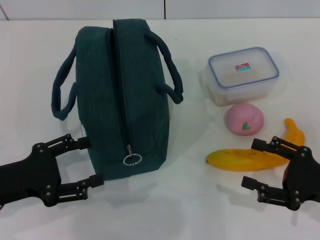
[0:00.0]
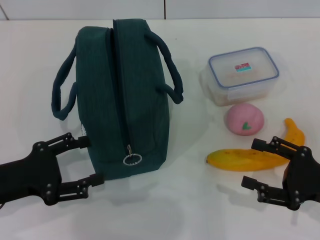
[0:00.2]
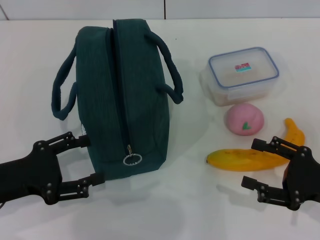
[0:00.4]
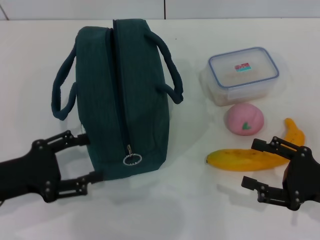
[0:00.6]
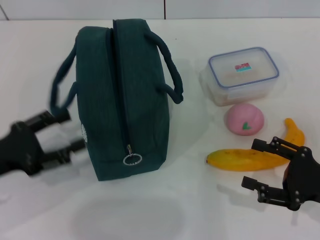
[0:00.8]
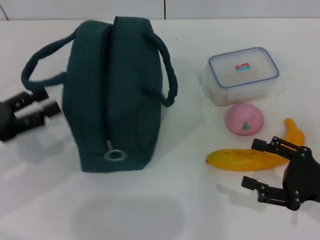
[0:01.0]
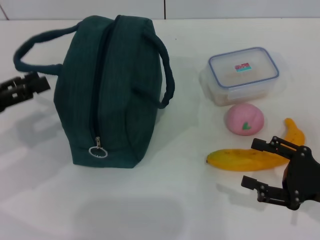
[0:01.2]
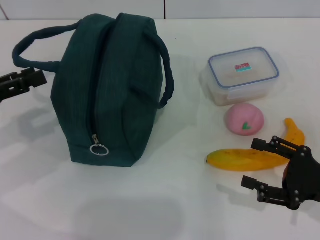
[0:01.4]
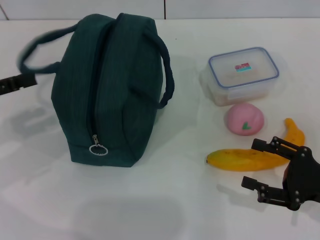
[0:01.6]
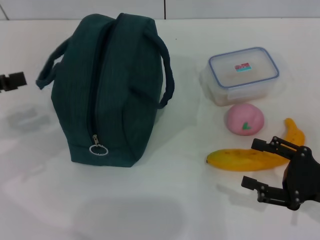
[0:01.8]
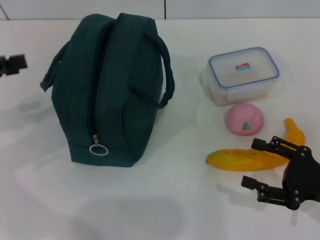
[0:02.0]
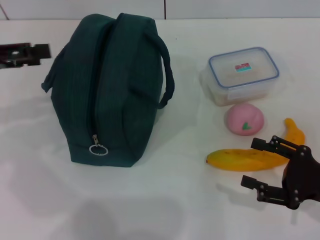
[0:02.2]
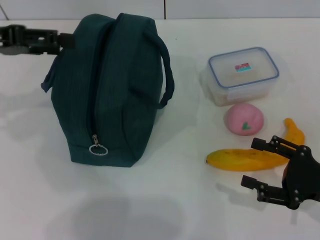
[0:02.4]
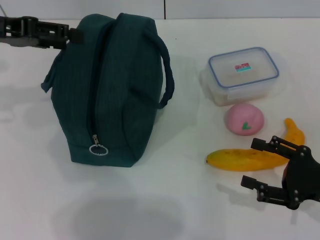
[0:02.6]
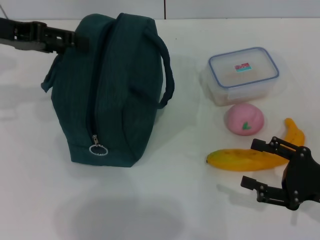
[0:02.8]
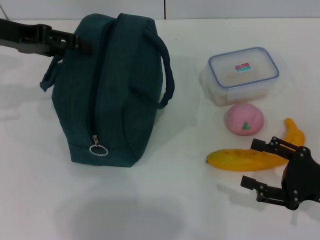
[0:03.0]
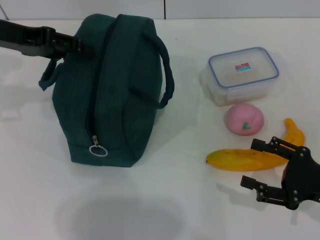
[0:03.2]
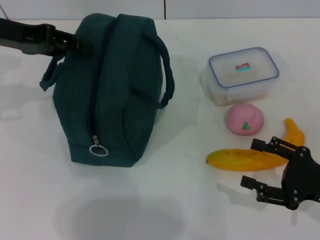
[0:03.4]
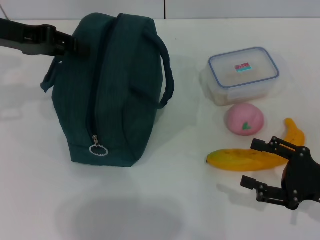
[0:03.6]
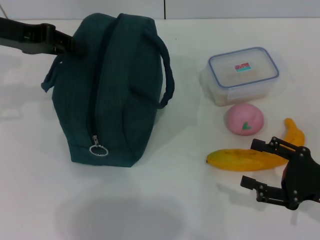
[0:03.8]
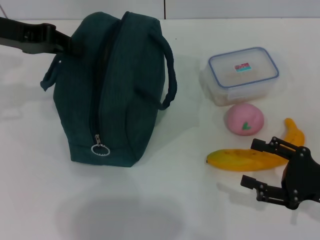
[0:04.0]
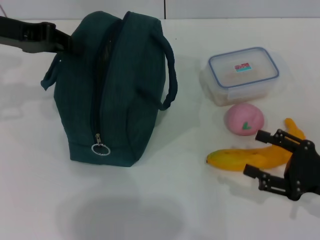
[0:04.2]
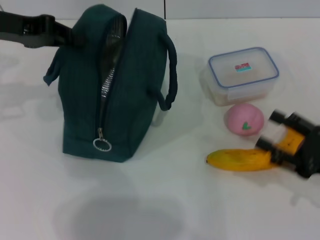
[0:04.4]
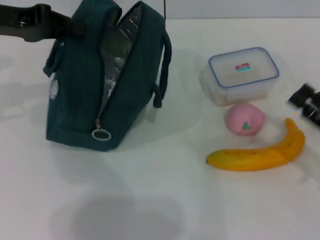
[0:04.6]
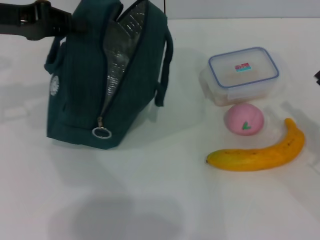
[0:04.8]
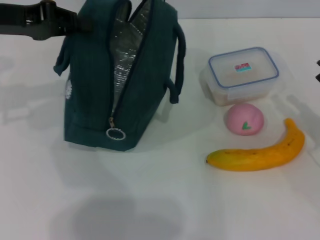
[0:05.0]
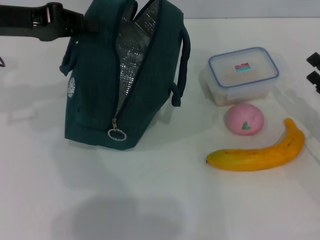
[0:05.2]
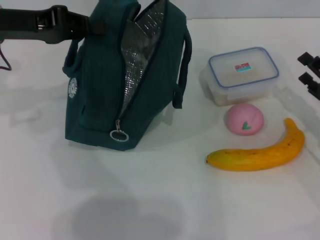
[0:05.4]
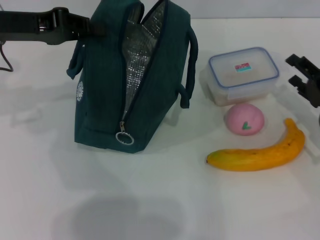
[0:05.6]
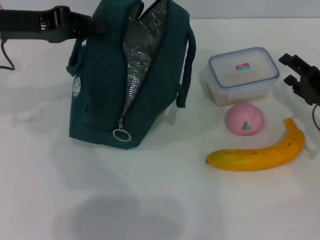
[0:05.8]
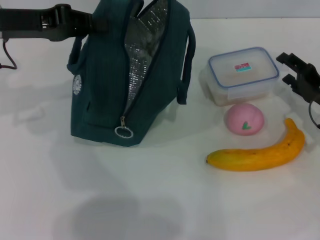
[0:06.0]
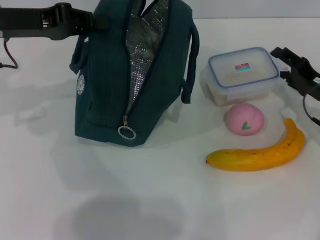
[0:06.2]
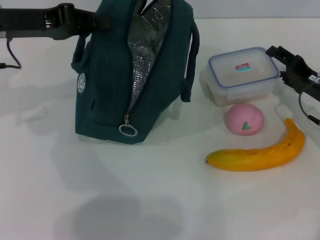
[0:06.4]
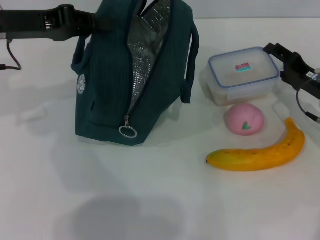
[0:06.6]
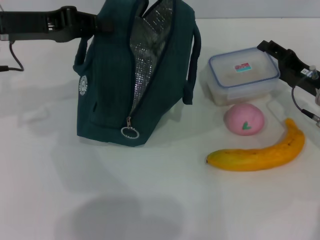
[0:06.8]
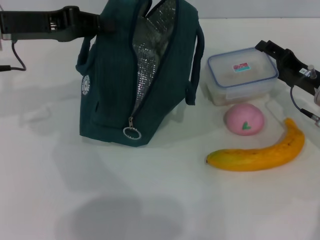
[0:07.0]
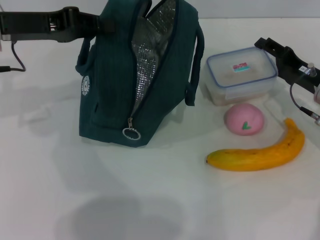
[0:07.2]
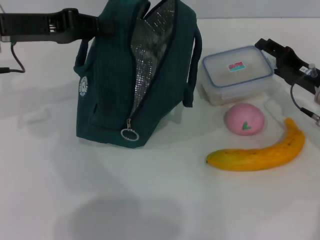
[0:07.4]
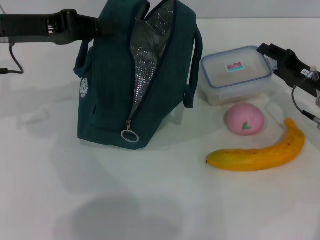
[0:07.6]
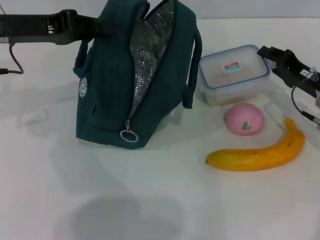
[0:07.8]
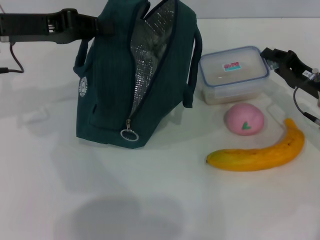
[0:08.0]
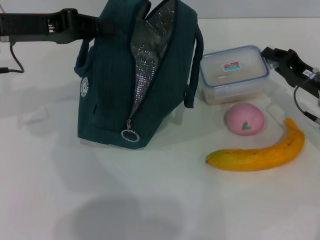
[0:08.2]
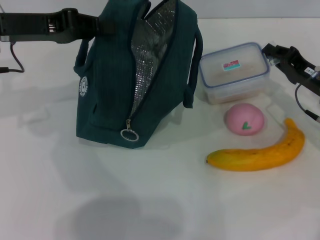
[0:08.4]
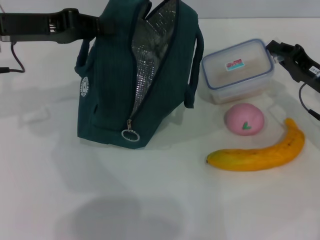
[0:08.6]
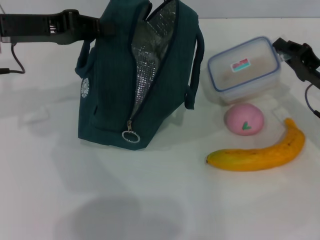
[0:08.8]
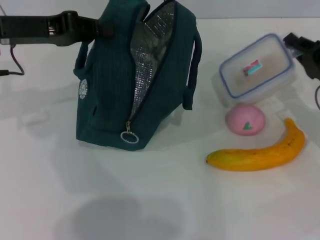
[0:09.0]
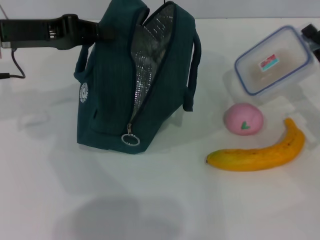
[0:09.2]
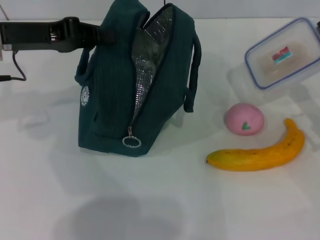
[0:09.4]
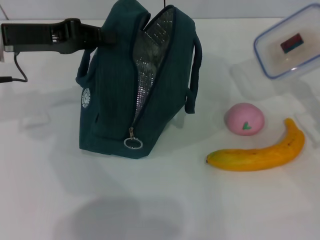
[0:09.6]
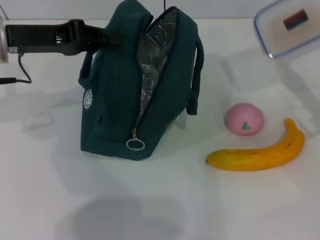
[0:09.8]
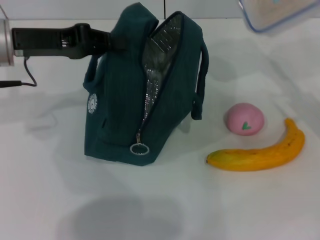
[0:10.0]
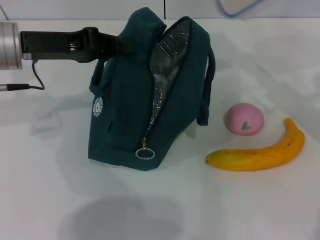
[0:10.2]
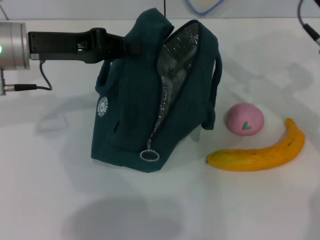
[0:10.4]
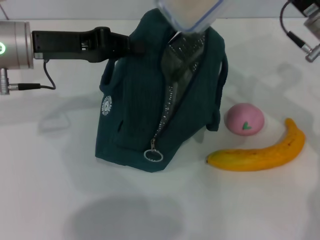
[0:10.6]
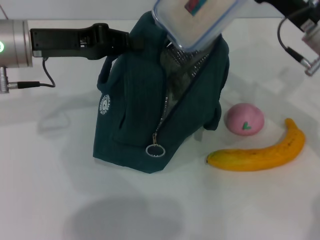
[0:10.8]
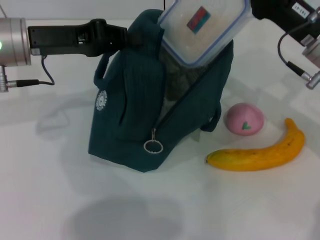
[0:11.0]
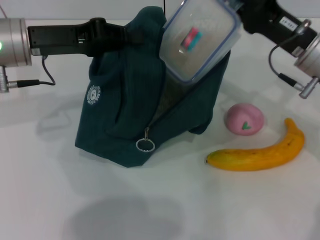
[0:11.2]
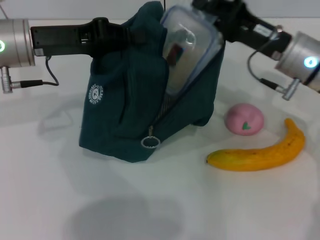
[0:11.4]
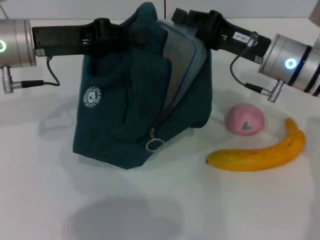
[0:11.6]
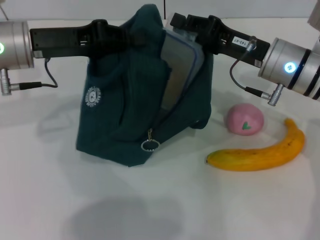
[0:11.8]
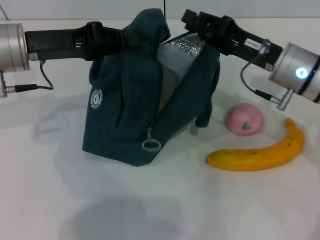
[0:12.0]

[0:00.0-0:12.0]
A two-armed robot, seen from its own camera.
Step, 0:00.0 to 0:05.0: Hold the lunch bag with your left hand.
Step, 0:05.2 to 0:08.4: Pick up the lunch box with your right hand.
0:00.0 to 0:01.6: The left gripper is displaced upward, to the left and forward by some 10 cm.
0:01.6 to 0:03.0: The left gripper moves forward, to the right and upward, about 15 cm.
0:03.0 to 0:04.4: The left gripper closes its fingers.
0:04.4 to 0:06.0: The right gripper shifts about 10 cm forward.
0:06.0 to 0:07.6: The grippers stay close to where they were, moving slightly.
0:07.6 to 0:09.0: The right gripper closes up.
0:09.0 to 0:10.4: The right gripper shifts approximately 15 cm upward and to the left.
0:10.4 to 0:12.0: The right gripper moves downward, about 5 cm.

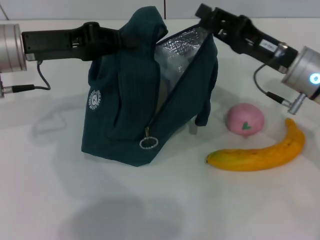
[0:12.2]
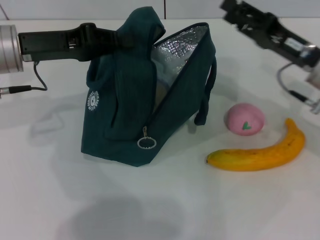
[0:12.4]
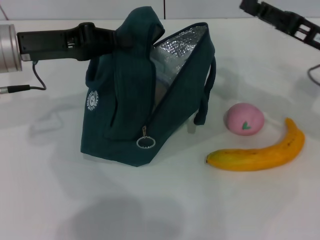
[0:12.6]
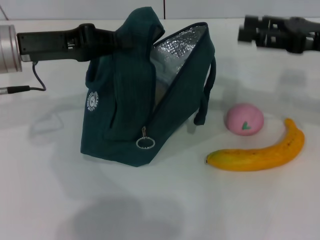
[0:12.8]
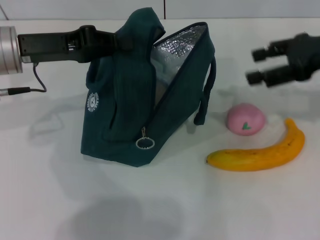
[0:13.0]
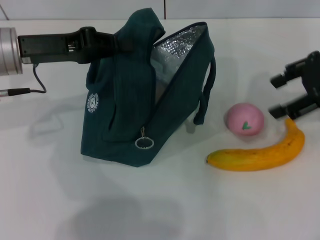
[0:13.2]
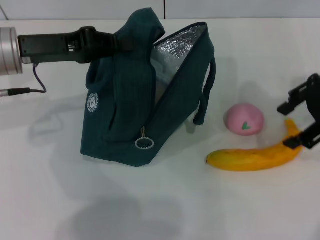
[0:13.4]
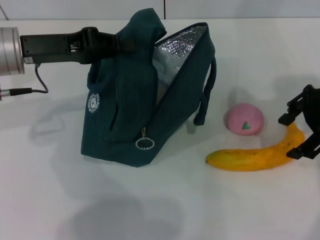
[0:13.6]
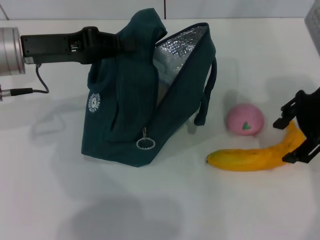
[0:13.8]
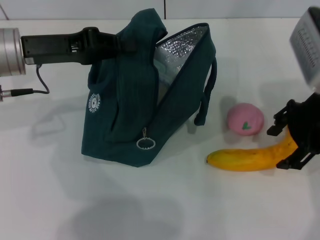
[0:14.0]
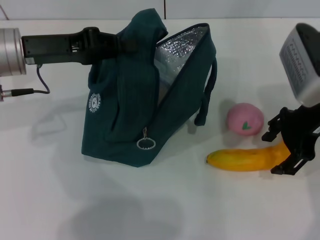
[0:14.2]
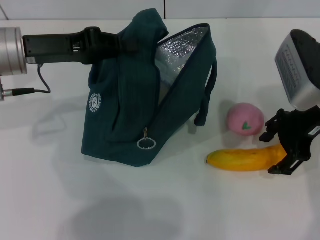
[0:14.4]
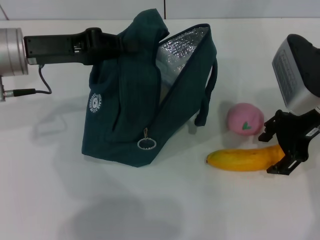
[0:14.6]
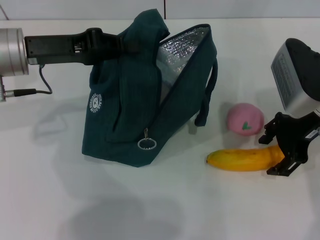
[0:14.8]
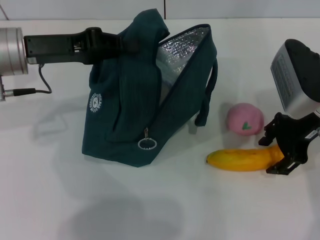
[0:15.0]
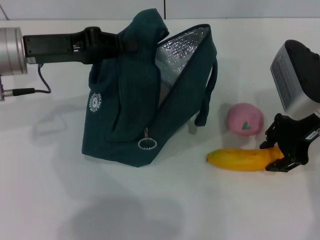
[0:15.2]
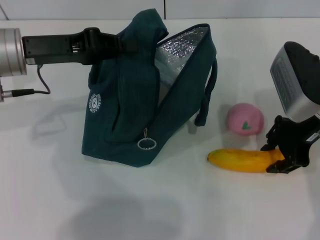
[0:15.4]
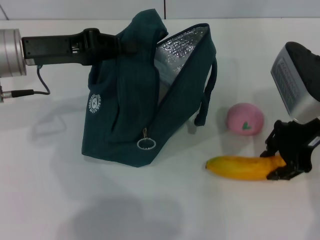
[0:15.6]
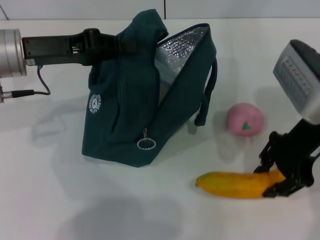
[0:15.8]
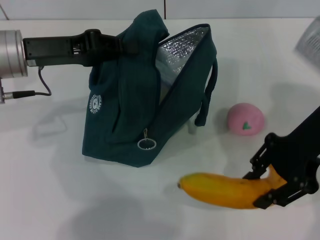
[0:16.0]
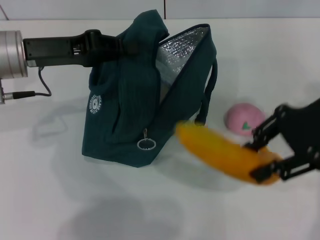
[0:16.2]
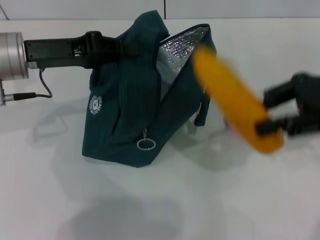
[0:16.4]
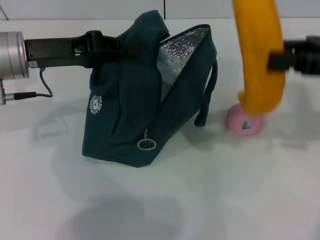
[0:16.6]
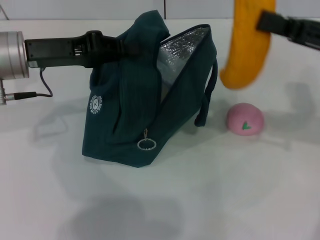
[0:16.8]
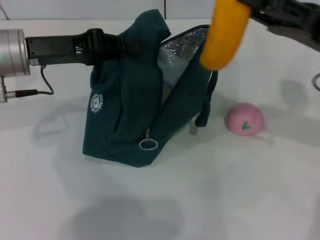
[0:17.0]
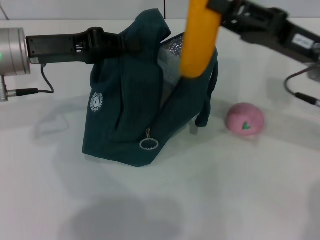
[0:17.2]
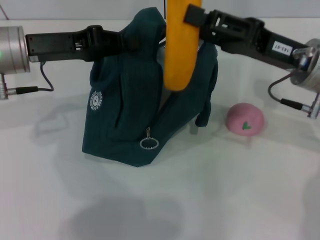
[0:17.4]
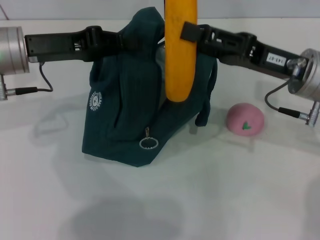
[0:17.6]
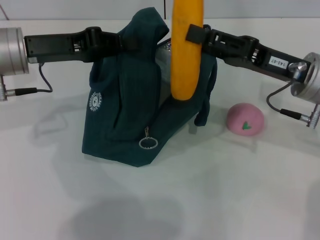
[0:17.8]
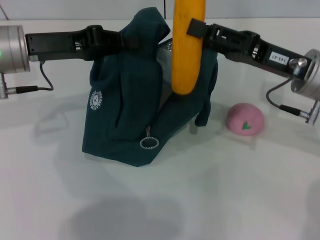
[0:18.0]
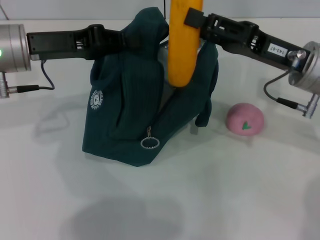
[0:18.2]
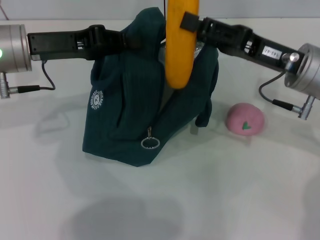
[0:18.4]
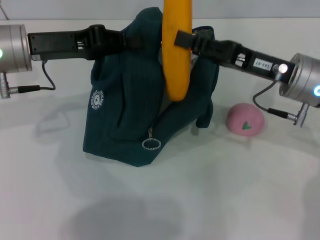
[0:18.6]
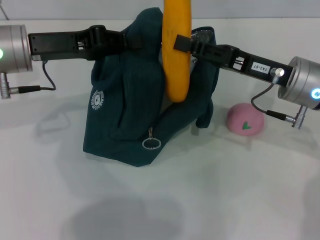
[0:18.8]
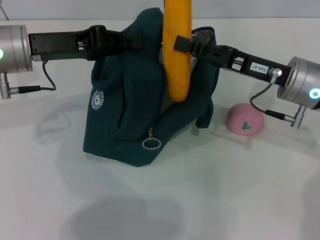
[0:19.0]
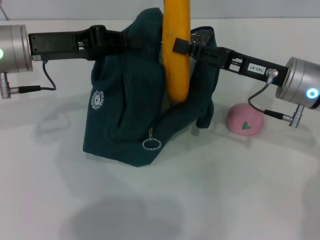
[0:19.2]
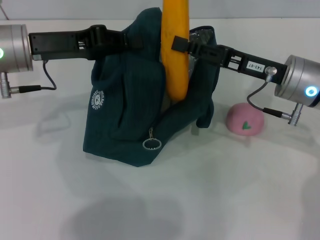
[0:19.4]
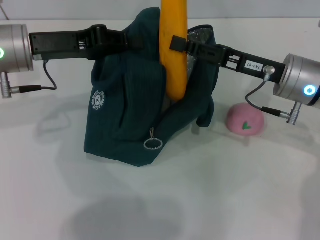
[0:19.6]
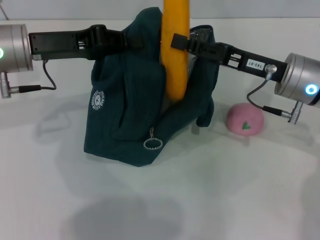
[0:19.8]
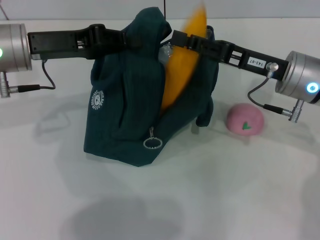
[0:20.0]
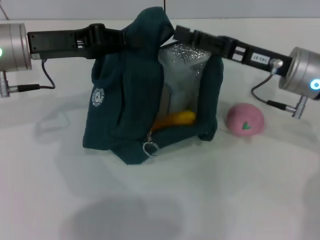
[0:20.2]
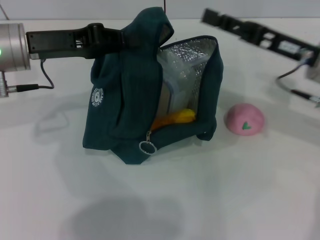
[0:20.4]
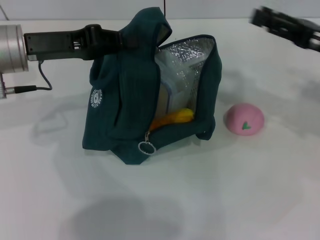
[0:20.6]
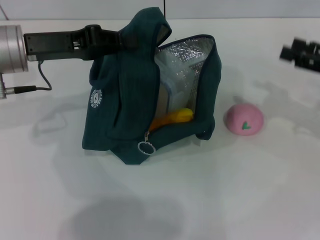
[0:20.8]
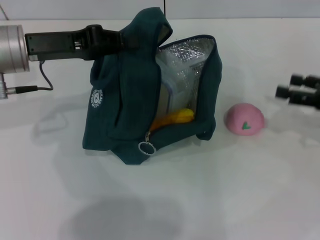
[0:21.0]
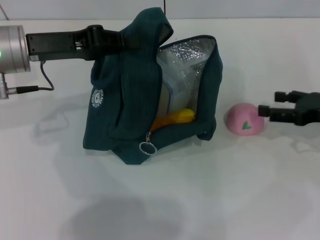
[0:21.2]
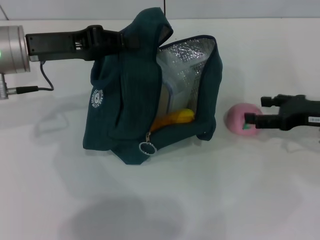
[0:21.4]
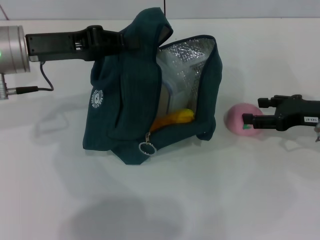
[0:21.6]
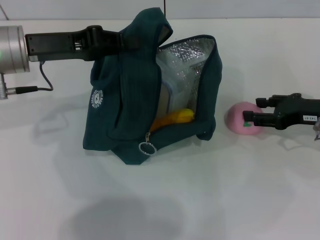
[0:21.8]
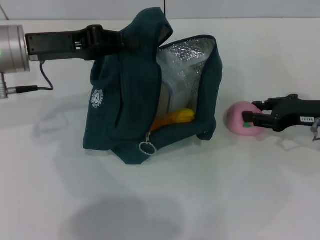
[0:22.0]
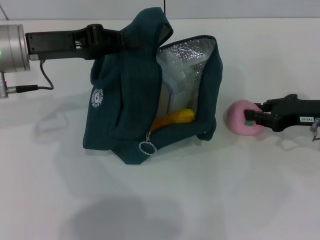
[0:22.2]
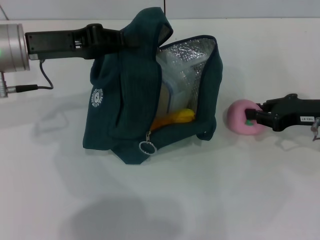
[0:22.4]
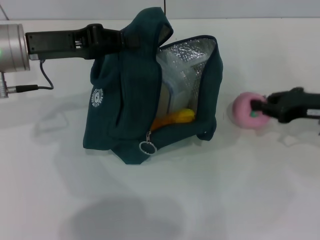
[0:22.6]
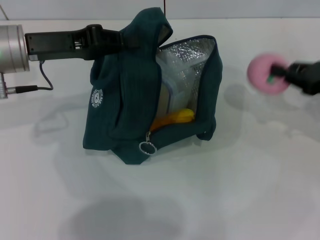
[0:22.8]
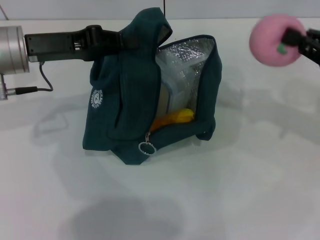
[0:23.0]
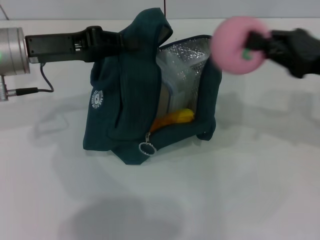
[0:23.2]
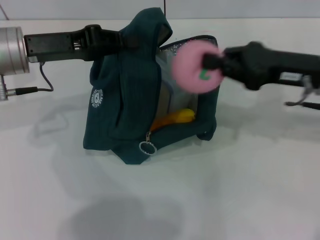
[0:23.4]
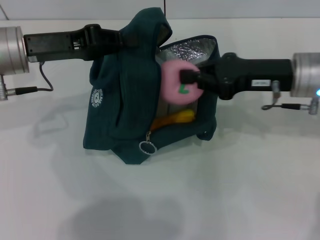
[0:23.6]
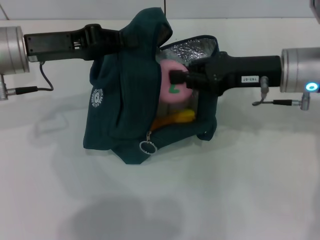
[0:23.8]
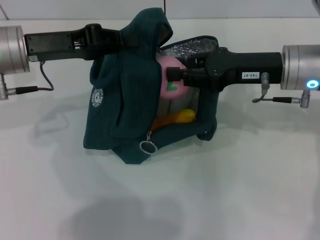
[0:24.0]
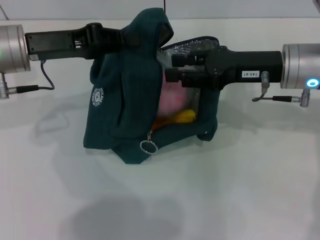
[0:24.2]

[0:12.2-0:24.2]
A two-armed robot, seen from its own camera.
Step, 0:12.4 to 0:15.2: Take the banana with your right hand.
Step, 0:15.4 to 0:20.4: Put the banana into the lunch bag with your right hand.
Step, 0:20.6 to 0:22.2: Grab the peach with your right hand.
0:12.2 to 0:13.8: The right gripper moves upward, about 10 cm, and opens up.
0:13.8 to 0:15.2: The right gripper travels downward by approximately 5 cm.
0:15.2 to 0:16.6: The right gripper goes about 10 cm to the right.
0:16.6 to 0:18.2: The right gripper travels to the left and downward by some 10 cm.
0:18.2 to 0:19.8: The grippers make only small movements.
0:19.8 to 0:21.2: The right gripper goes about 15 cm to the right, and opens.
0:21.2 to 0:22.6: The right gripper closes its fingers.
0:22.6 to 0:24.2: The right gripper is displaced to the left and upward by approximately 10 cm.
